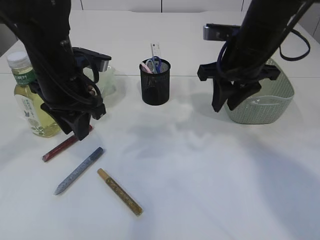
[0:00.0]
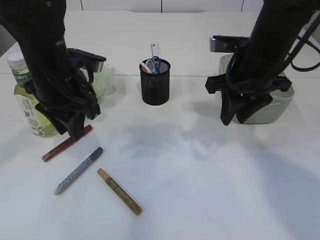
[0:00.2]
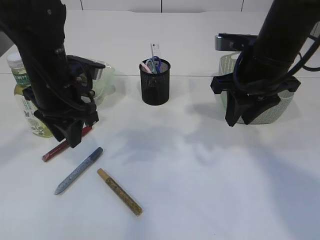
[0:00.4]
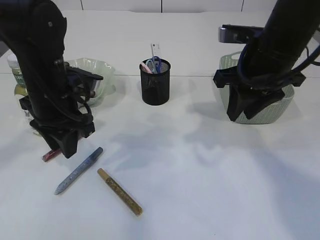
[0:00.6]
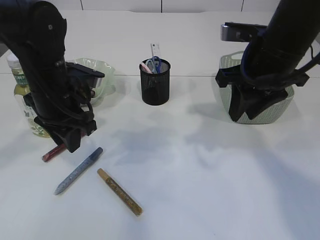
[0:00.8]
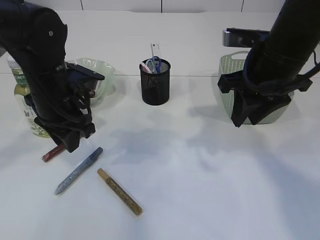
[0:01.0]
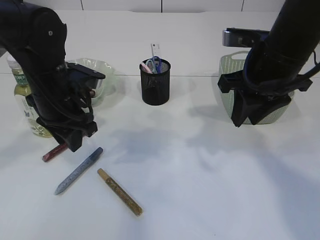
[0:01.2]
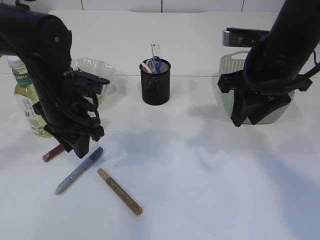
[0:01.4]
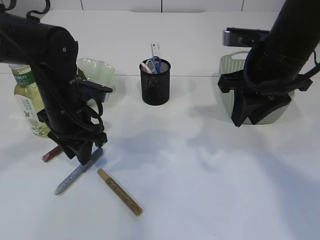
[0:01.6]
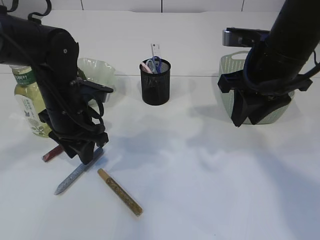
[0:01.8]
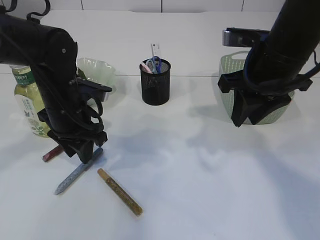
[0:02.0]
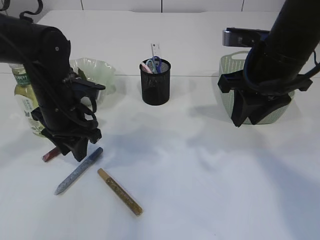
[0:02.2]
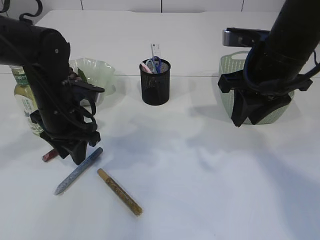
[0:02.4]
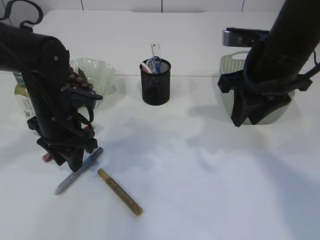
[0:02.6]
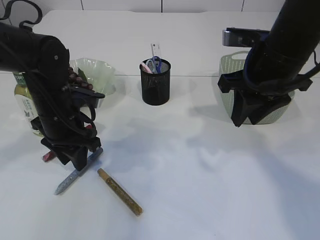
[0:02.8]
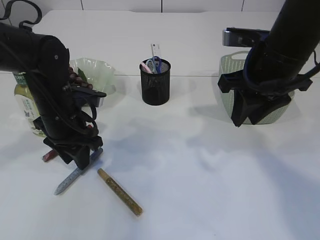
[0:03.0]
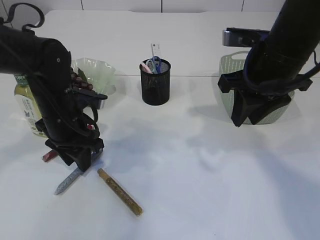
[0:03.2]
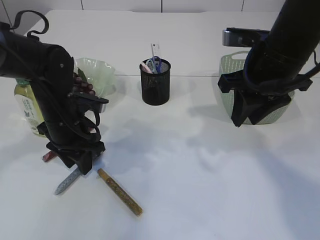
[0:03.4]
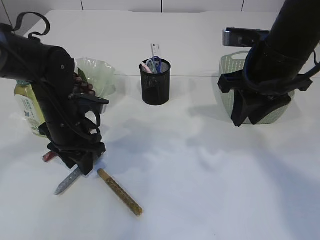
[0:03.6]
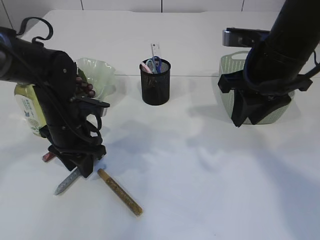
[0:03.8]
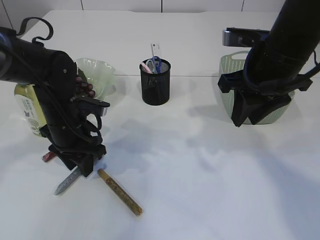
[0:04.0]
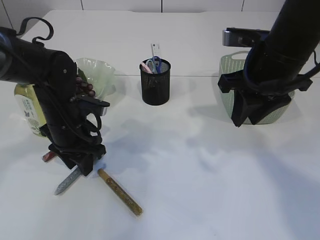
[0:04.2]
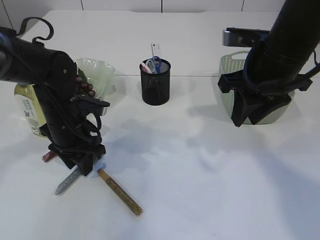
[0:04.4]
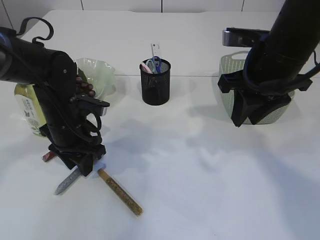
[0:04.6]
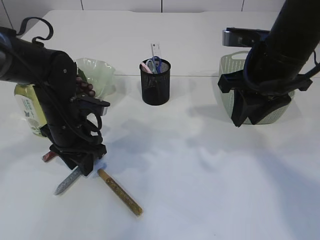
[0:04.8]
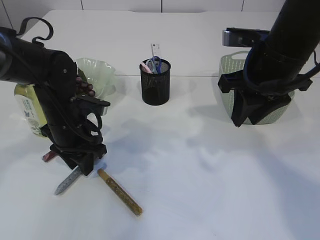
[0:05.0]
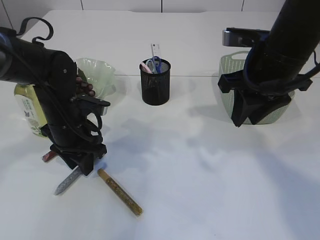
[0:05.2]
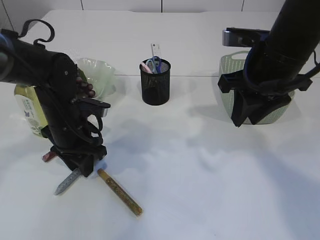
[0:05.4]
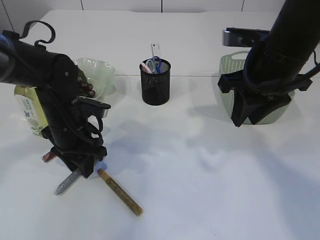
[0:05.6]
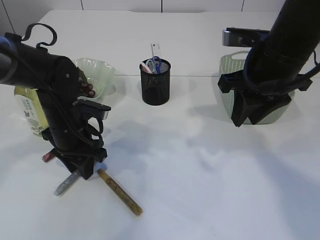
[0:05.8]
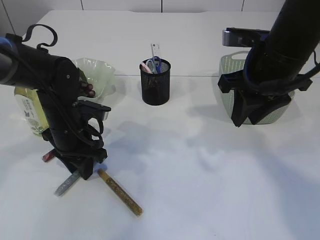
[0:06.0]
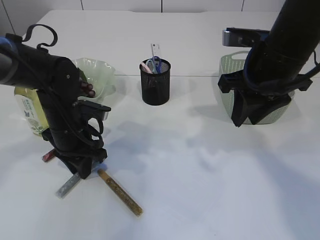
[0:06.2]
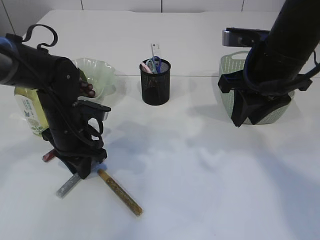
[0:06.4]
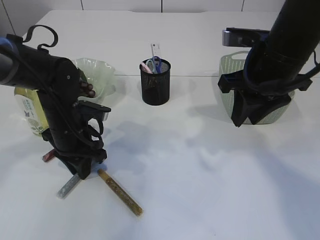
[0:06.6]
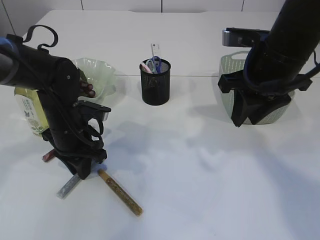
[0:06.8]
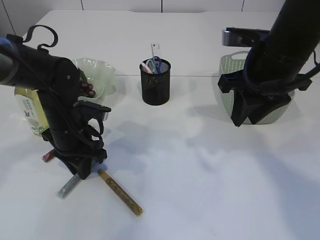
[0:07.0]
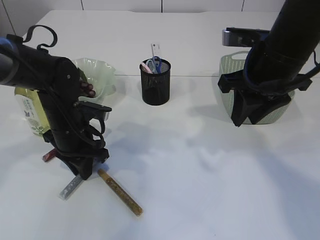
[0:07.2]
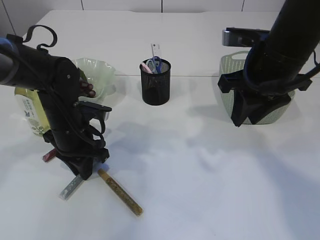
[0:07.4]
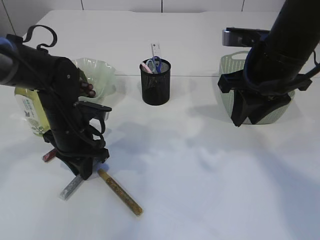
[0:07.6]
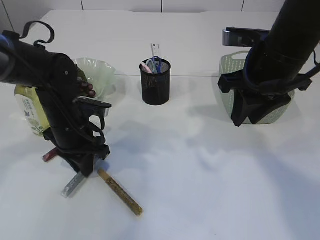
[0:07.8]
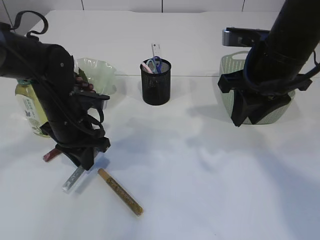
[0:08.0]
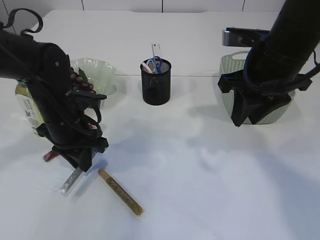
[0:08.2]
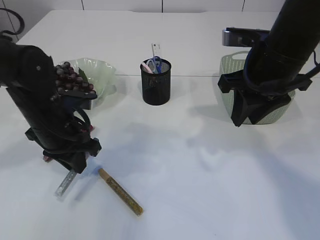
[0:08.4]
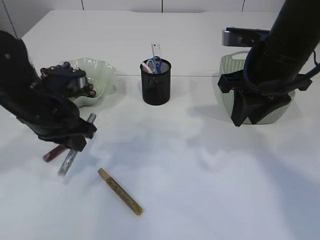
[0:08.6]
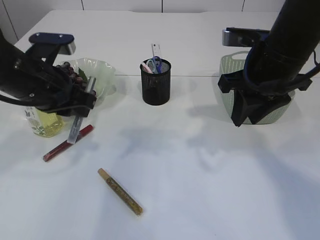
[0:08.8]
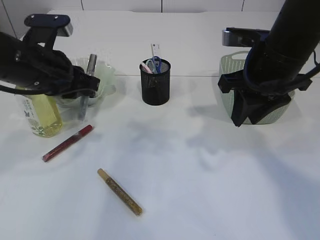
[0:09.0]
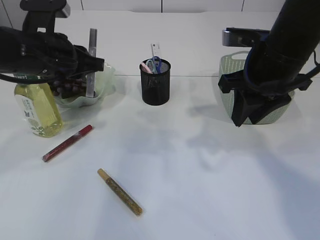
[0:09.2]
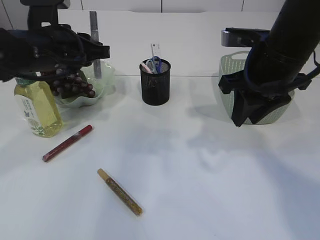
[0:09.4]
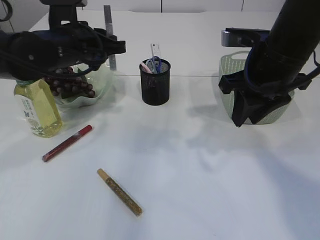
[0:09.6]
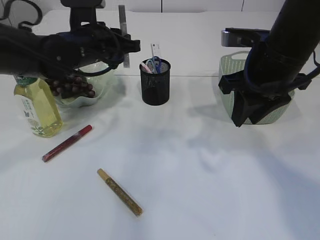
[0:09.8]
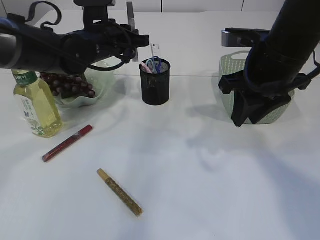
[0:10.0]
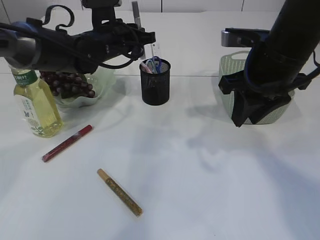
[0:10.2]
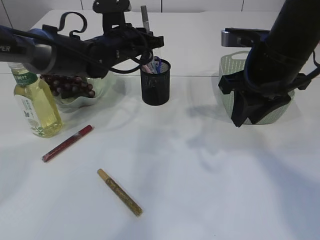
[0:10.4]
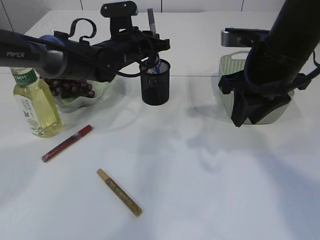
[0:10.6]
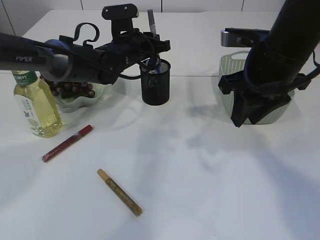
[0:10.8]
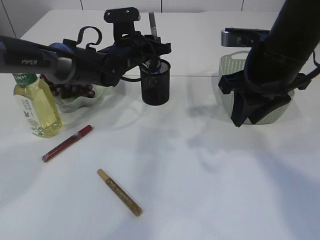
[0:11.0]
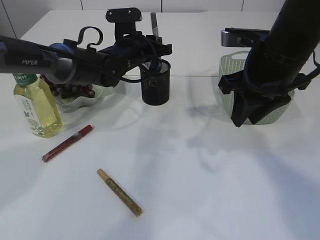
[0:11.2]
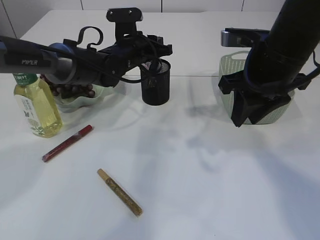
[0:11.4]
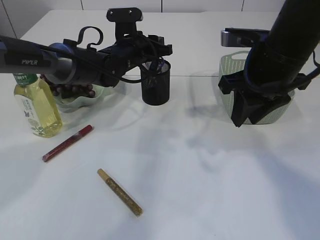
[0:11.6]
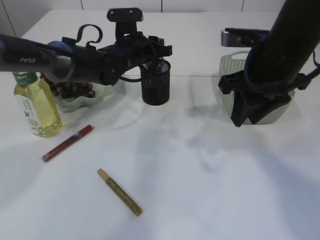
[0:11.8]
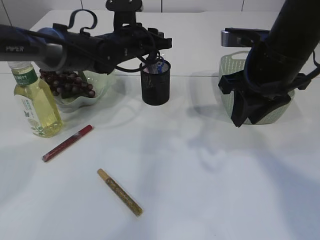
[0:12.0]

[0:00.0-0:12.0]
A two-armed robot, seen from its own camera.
Step, 0:00.0 to 0:08.4: pick up the silver glue.
0:00.0 to 0:01.6: The right gripper is displaced backward by some 5 cm. The left gripper goes some 5 cm downward.
0:01.6 to 0:04.4: The grippers move only a little.
0:04.4 to 0:07.6: Neither gripper changes place.
0:07.6 to 0:09.0: The left gripper is displaced upward by roughly 15 cm.
0:09.0 to 0:10.4: The left gripper heads forward and to the right, covering some 15 cm.
0:10.4 to 0:12.0: The grippers make only small movements.

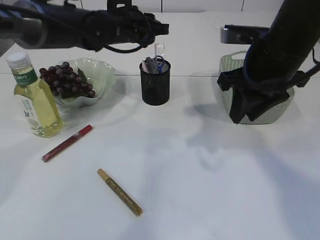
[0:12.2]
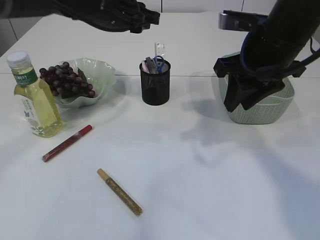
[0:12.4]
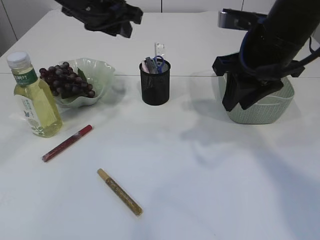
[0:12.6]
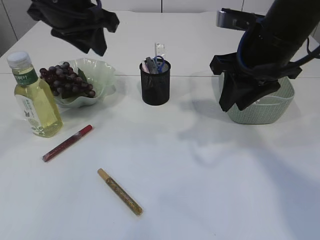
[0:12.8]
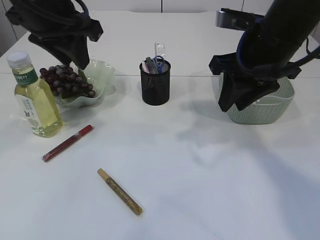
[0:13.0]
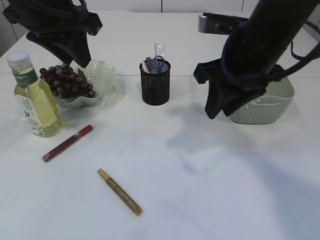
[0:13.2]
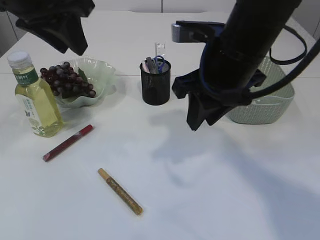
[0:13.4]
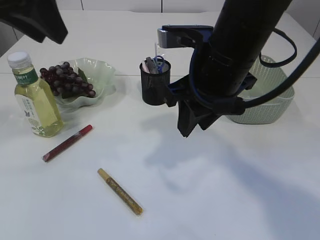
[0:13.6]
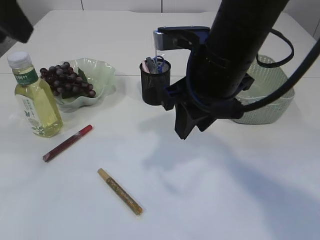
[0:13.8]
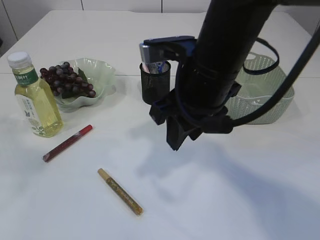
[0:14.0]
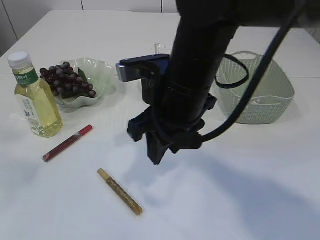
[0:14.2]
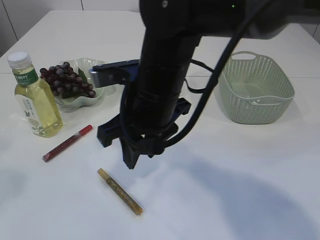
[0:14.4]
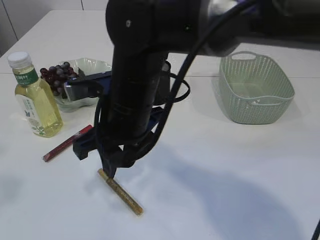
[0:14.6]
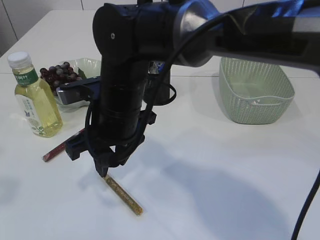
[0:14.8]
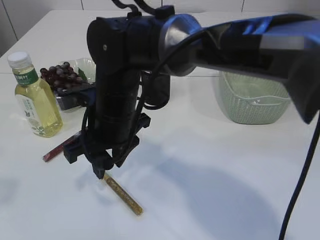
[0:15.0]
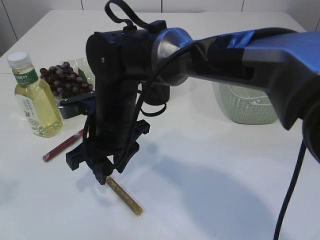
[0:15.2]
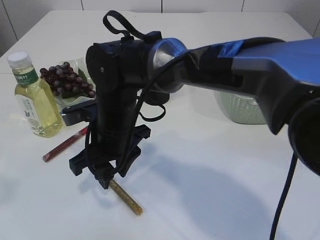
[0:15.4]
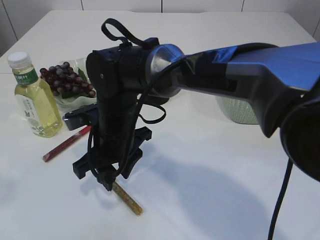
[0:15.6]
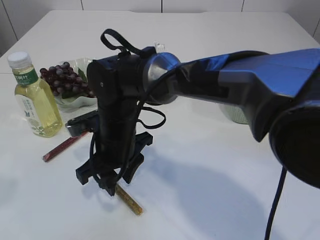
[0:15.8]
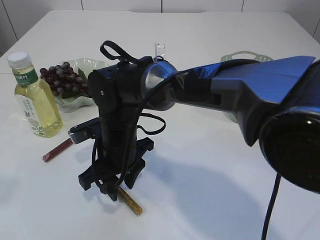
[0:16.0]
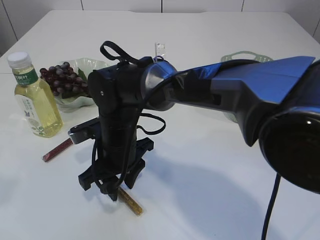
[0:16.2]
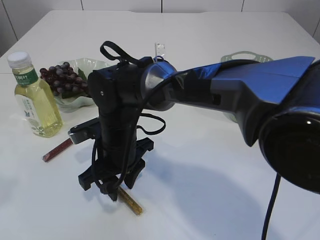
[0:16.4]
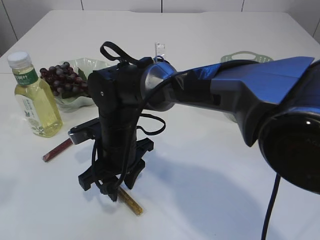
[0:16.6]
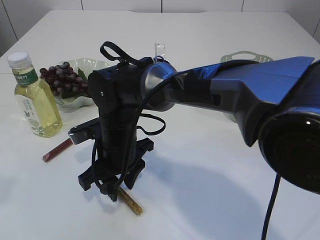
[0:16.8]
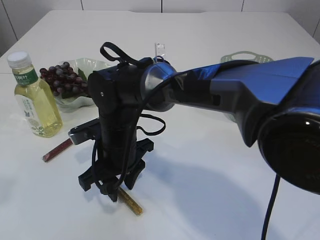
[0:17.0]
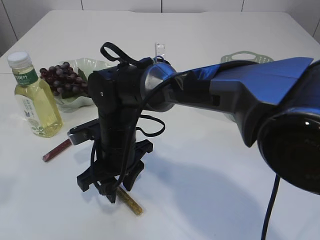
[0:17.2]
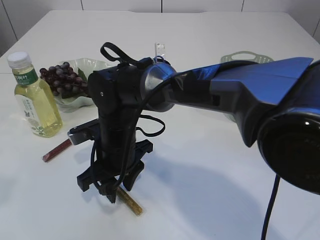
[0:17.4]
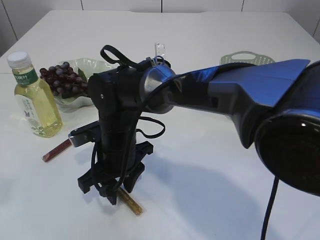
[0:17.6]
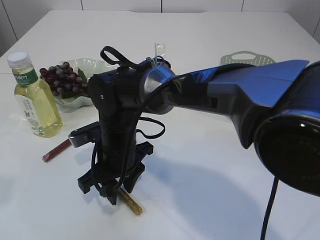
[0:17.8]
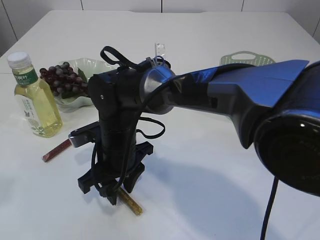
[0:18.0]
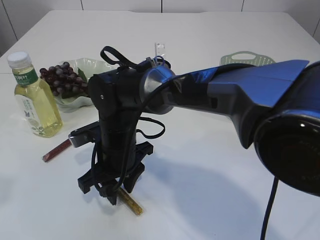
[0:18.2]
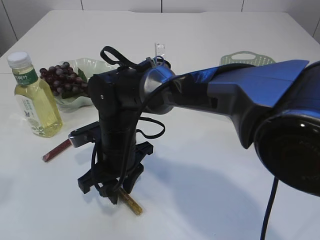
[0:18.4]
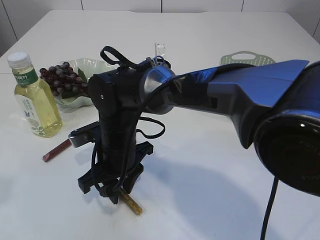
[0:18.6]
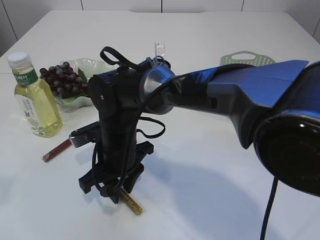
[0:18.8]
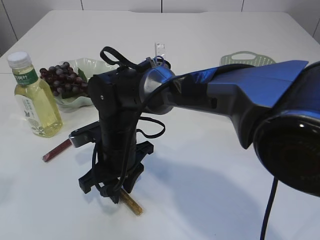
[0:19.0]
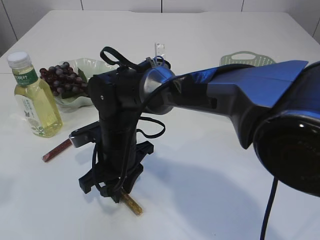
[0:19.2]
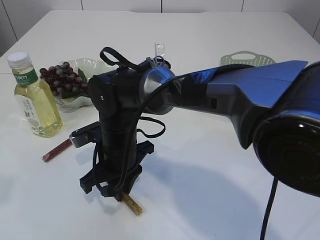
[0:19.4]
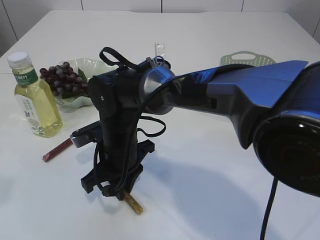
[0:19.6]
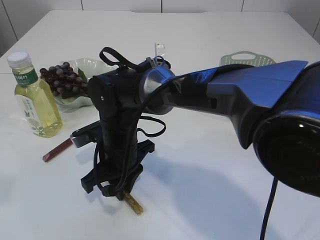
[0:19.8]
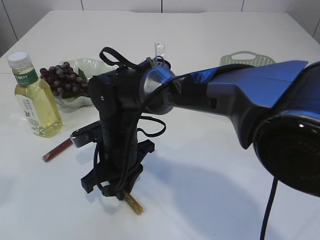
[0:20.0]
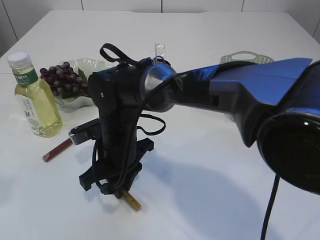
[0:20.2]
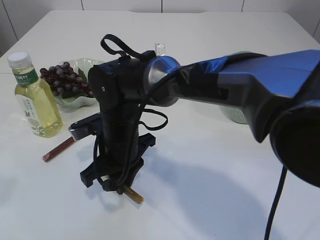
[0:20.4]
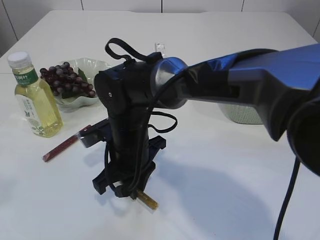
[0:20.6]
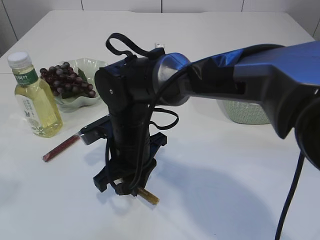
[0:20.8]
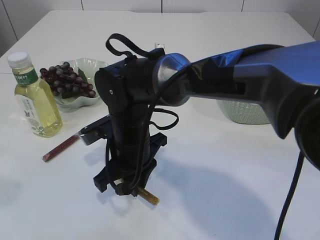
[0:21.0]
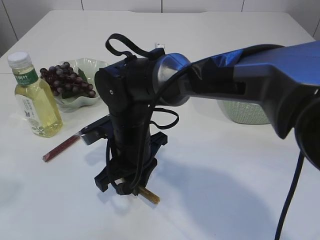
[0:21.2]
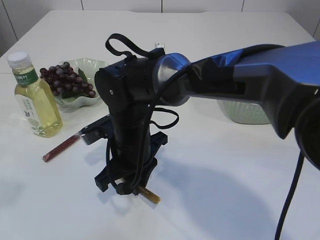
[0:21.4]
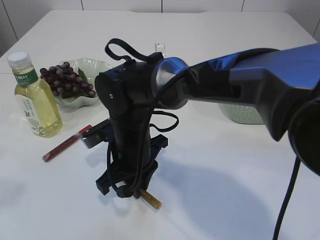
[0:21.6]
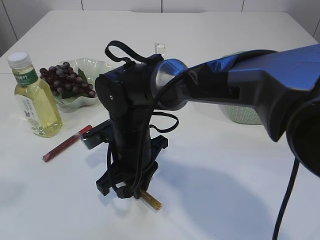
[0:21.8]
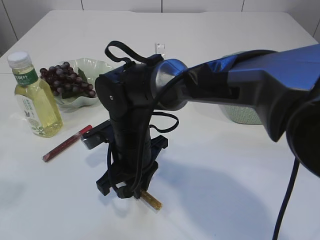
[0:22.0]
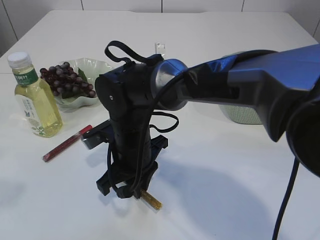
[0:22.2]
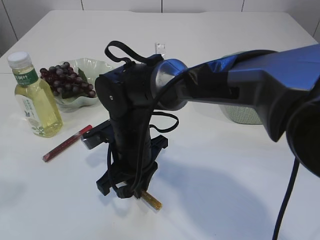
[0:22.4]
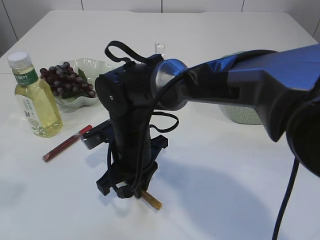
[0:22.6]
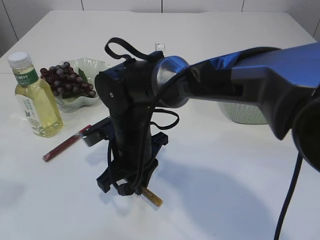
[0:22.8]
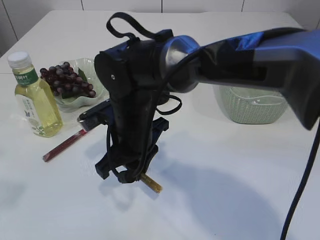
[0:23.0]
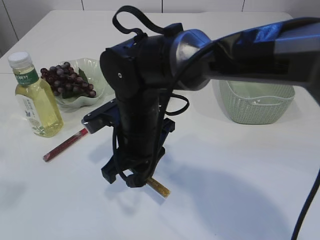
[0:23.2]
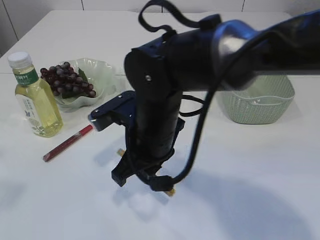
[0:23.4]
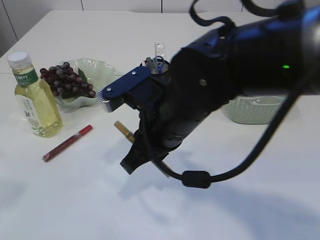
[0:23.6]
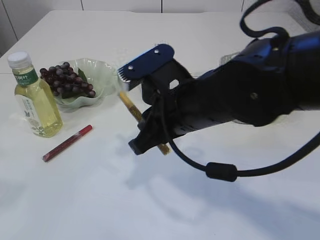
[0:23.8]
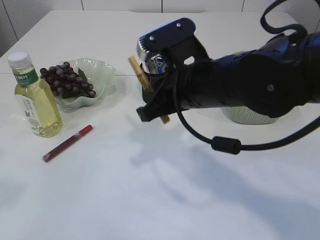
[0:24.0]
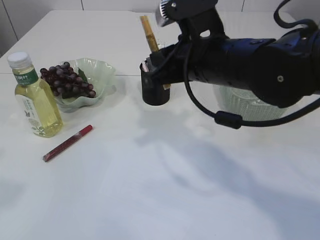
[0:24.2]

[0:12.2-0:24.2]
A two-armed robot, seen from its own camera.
Step, 0:12.4 to 0:23.4: pick up the yellow glue.
0:12.2 to 0:13.8: The left gripper heads backward, upward and to the left, covering roughly 30 cm, while the right gripper moves to the left, approximately 10 cm.
0:13.8 to 0:15.2: The left gripper travels backward and to the left by roughly 10 cm. Meanwhile the right gripper travels to the left and downward by approximately 20 cm.
0:15.2 to 0:16.6: The right gripper is displaced downward by roughly 5 cm.
0:16.6 to 0:19.8: The two grippers keep their place.
0:21.2 to 0:22.6: Both grippers stay put.
0:22.6 to 0:24.2: The right gripper heads upward and to the right, covering approximately 15 cm.
